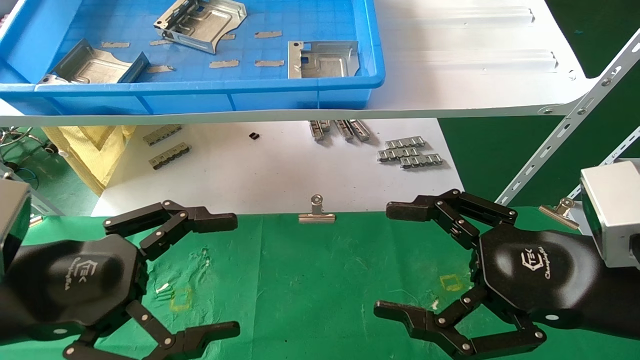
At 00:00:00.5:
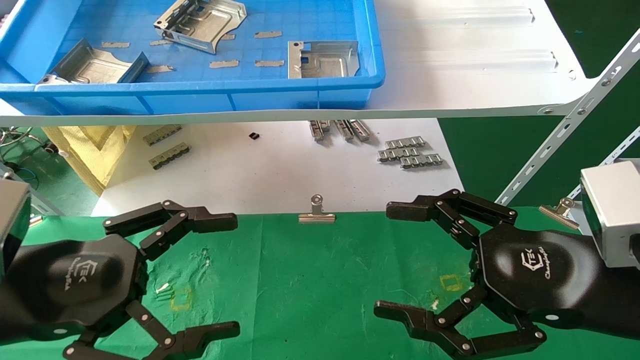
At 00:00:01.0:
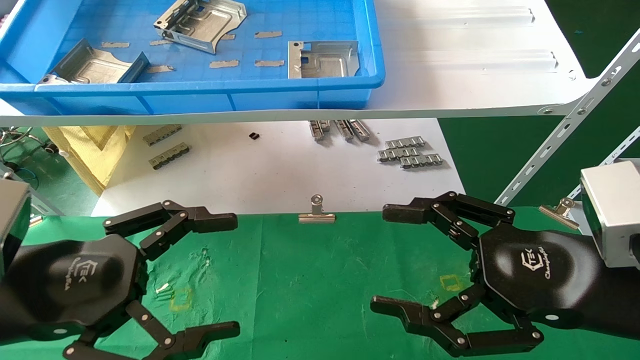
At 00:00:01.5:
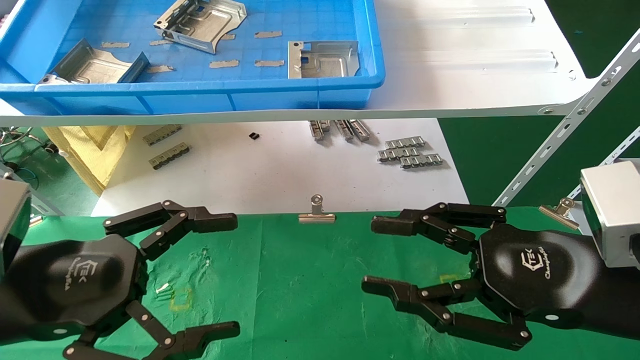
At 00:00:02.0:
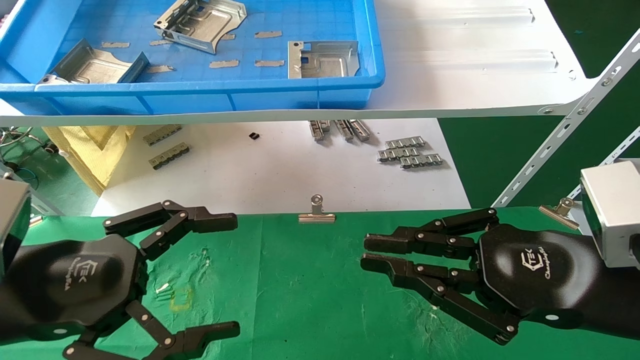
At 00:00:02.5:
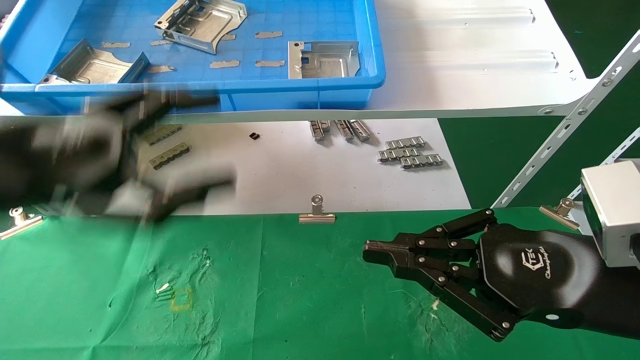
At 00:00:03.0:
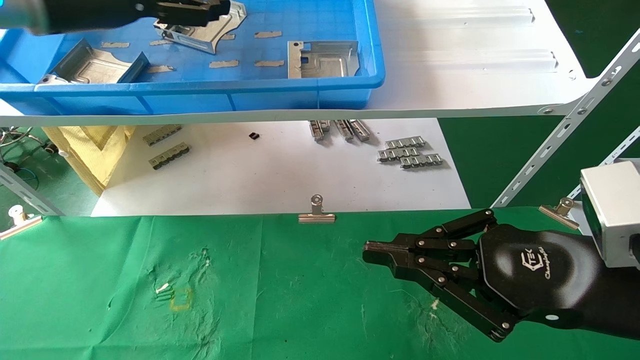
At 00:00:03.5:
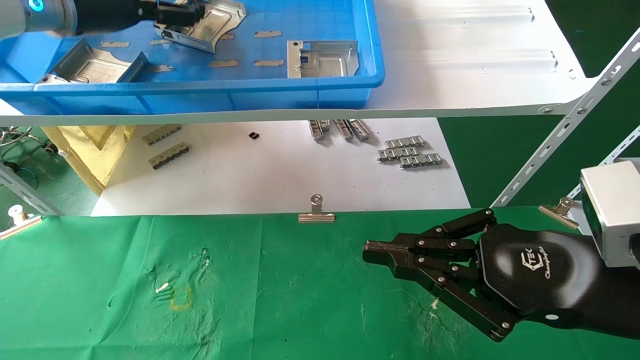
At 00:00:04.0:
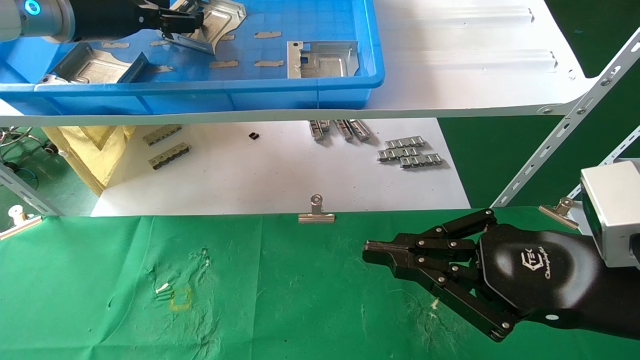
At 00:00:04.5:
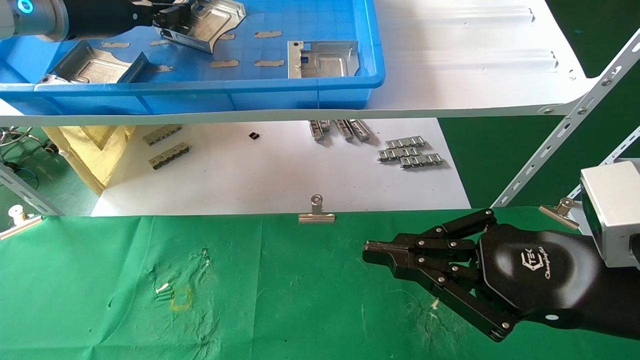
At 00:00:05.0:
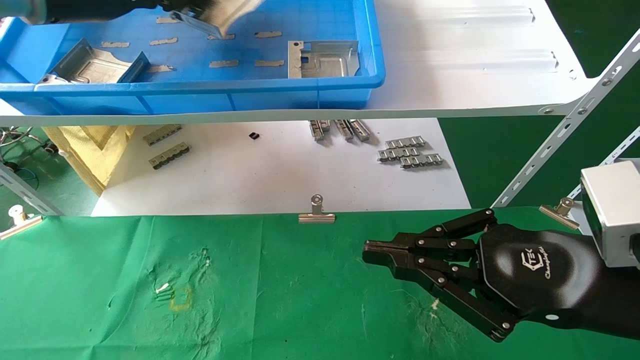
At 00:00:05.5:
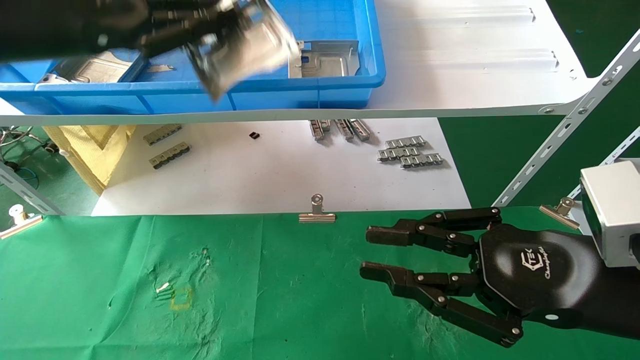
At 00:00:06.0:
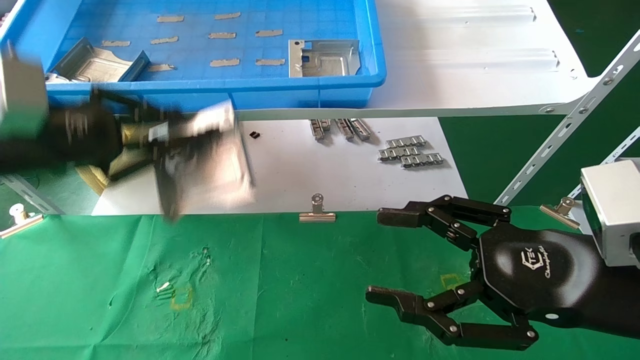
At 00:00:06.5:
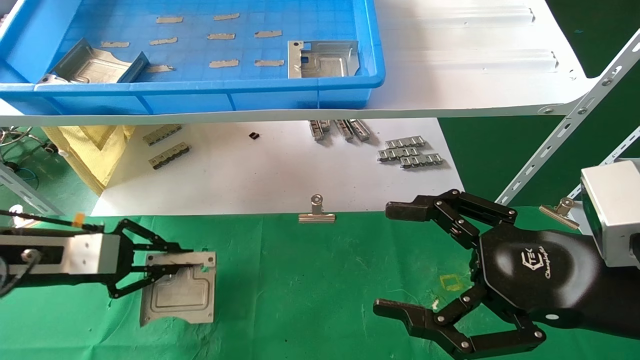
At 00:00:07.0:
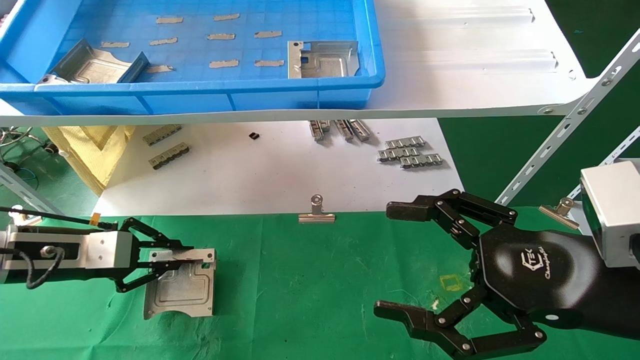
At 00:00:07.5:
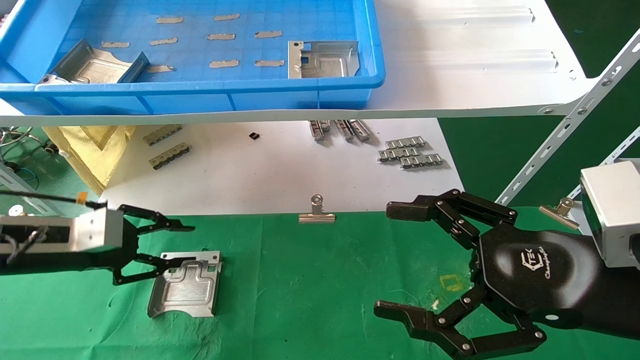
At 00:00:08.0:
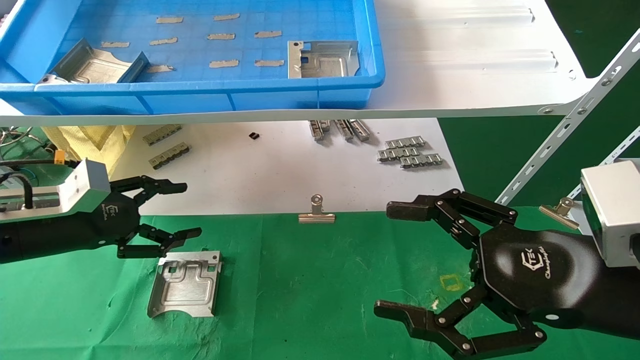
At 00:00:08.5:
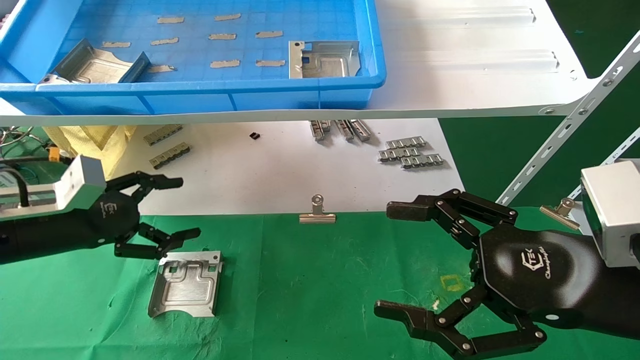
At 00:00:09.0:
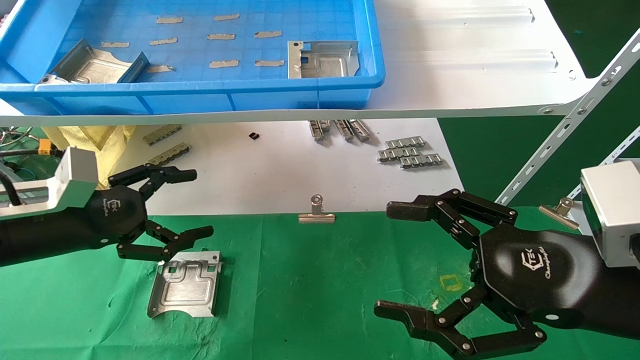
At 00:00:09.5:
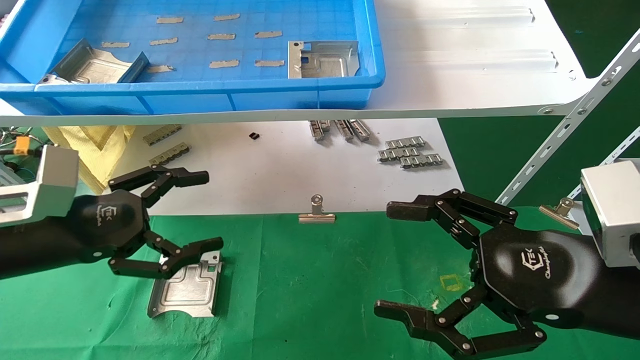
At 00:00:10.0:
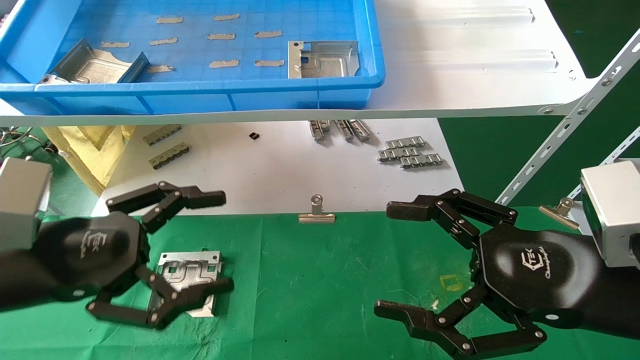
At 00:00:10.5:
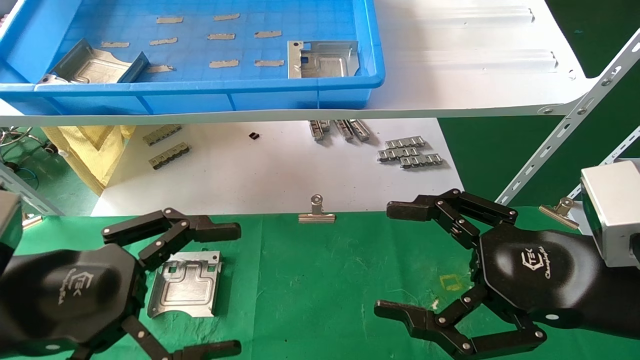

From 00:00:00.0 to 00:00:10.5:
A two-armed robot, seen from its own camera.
Task of the whole recording: use the mechanical arm to pick up the parts and place them on the table.
Step, from 00:00:02.5 to 00:00:04.5: Pick up the hard drive bracket from the feeding area.
Step, from 00:00:05.0 to 00:00:07.5: Place the hard drive bracket into the box.
From 00:00:00.0 to 00:00:02.0: The right gripper closes its fingers.
From 00:00:02.0 to 00:00:04.0: The left gripper travels forward and upward by approximately 30 cm.
From 00:00:04.0 to 00:00:06.5: The left gripper shifts roughly 25 cm downward, and closes its fingers. The right gripper opens its fingers.
From 00:00:06.5 to 00:00:08.5: The left gripper opens.
From 00:00:08.5 to 00:00:10.5: The left gripper shifts roughly 20 cm backward and to the right.

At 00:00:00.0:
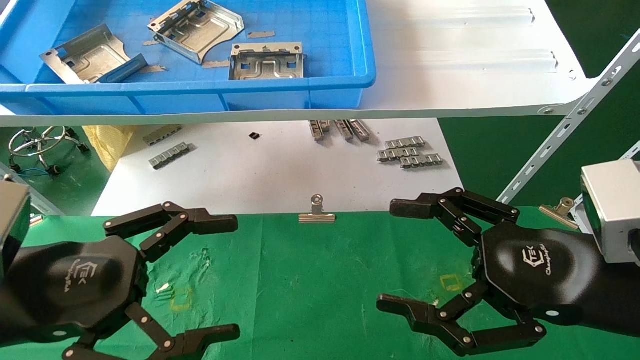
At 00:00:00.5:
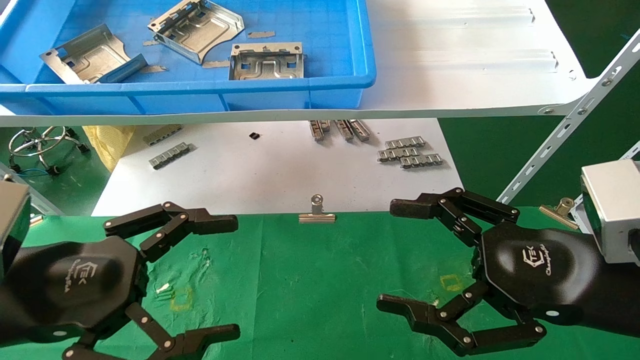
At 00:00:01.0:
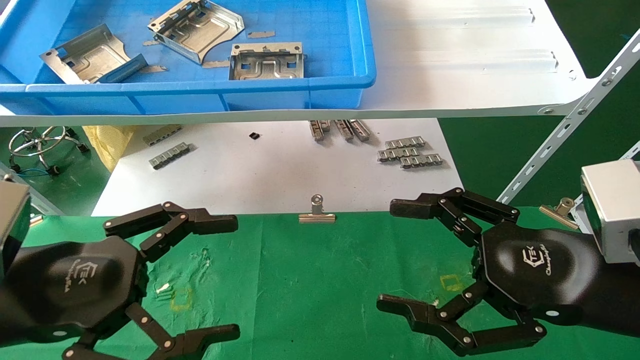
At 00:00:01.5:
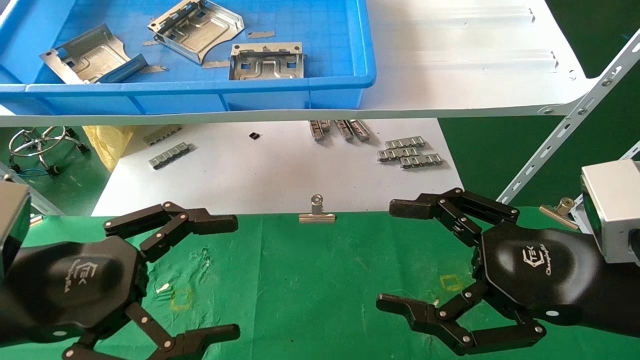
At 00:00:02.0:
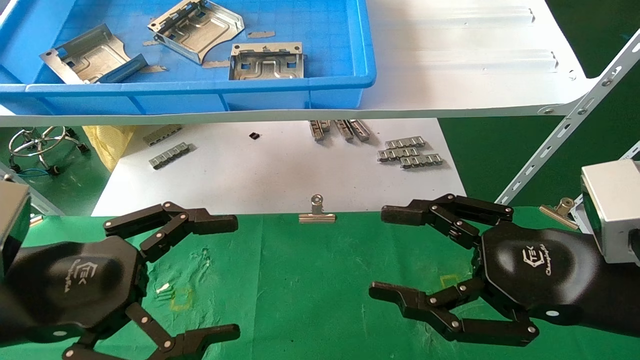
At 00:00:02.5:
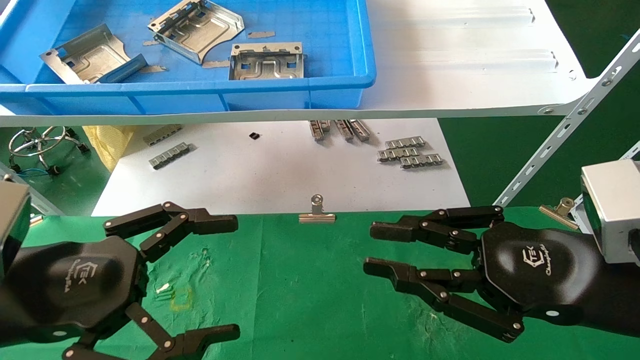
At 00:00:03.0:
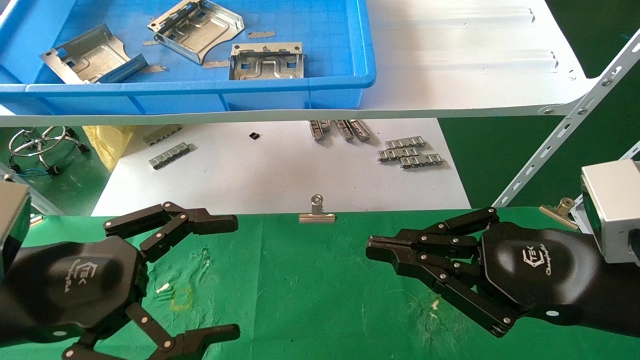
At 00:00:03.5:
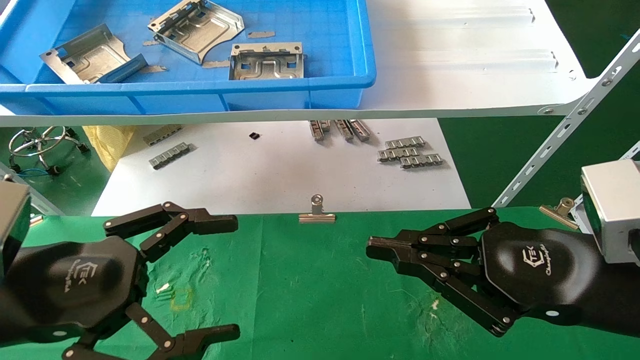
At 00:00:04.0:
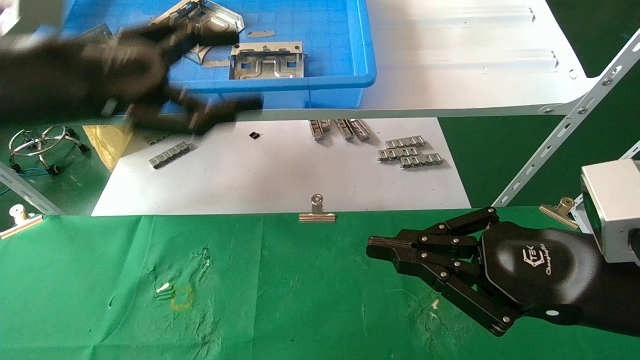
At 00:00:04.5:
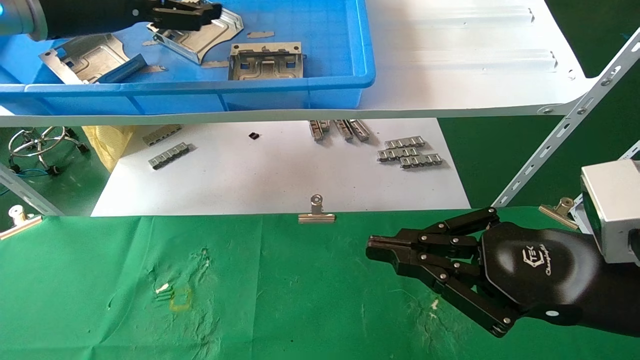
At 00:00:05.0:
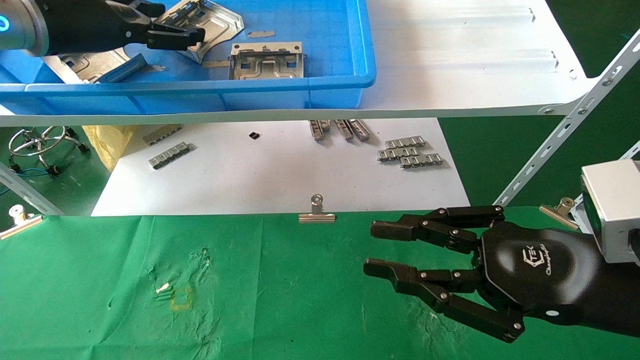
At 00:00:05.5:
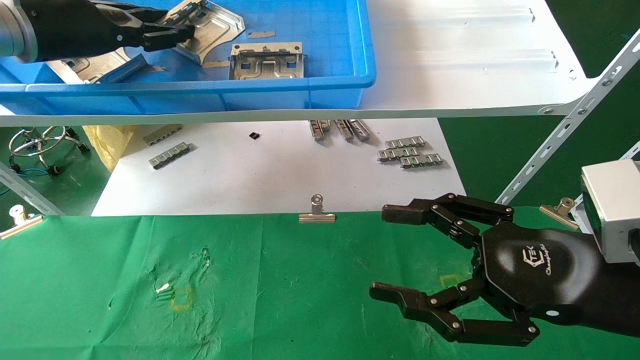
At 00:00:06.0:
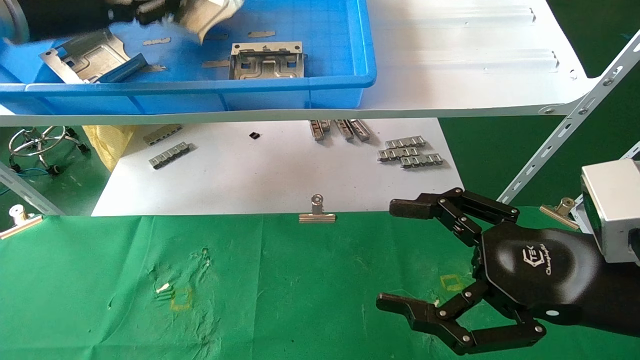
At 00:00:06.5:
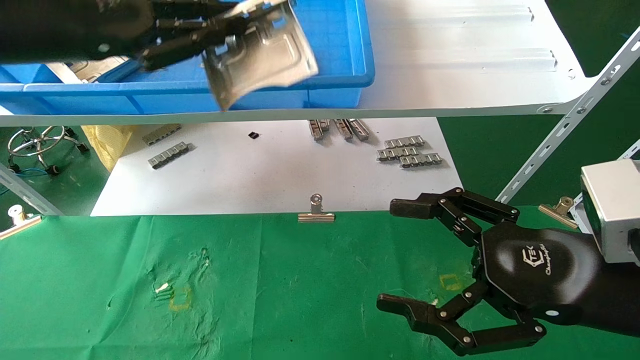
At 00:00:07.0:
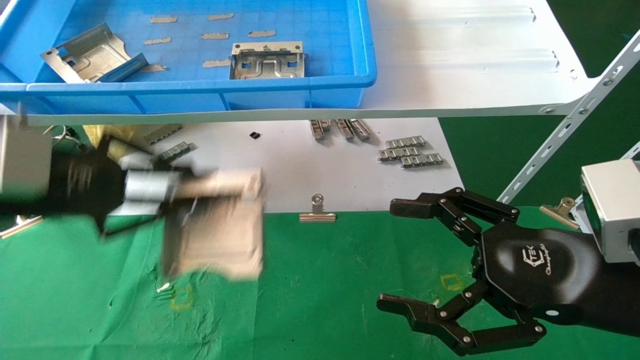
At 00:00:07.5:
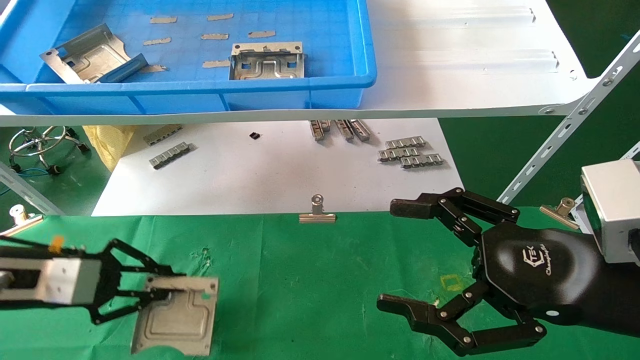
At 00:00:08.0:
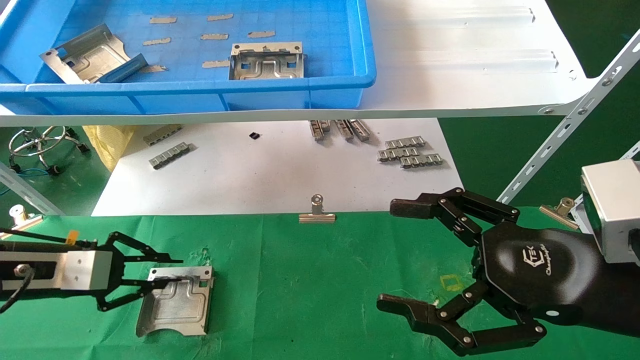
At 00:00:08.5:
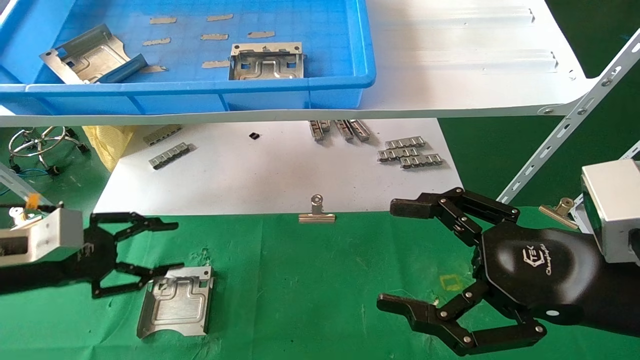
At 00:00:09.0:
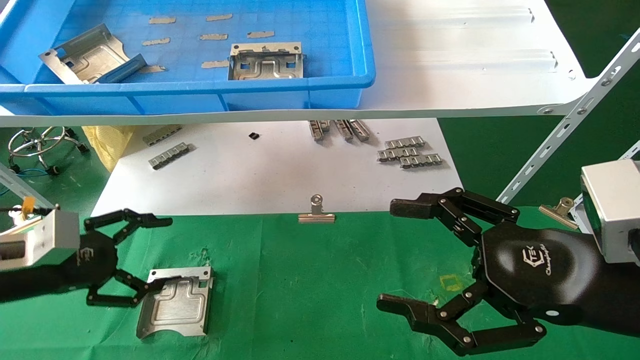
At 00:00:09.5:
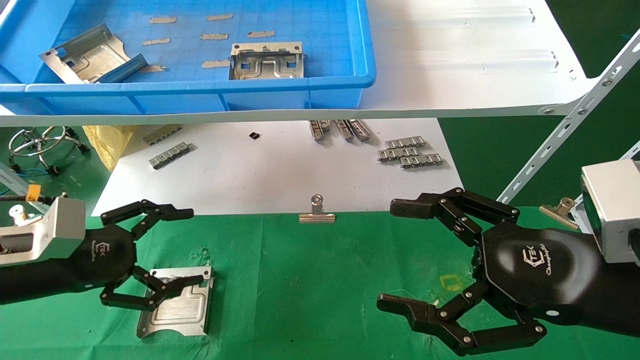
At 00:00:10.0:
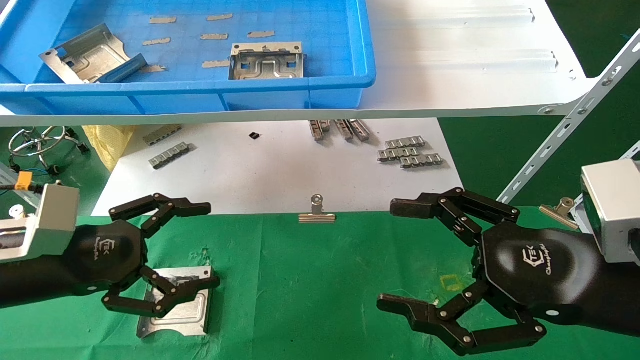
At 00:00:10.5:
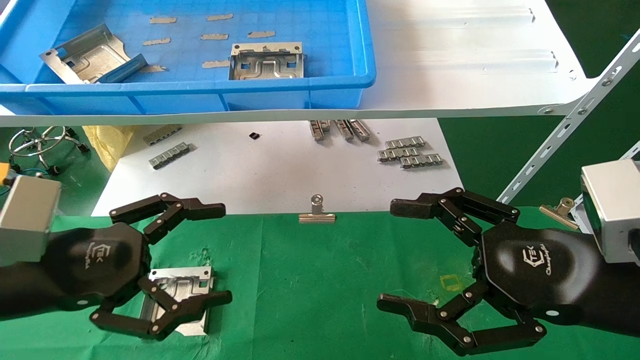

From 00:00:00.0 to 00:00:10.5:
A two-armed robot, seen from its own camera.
Task of the whole recording: use the mechanical arm to pick up the parts and place them on the table.
Step, from 00:00:03.5 to 00:00:06.5: Pick up the hard drive bracket from the feeding area.
Step, from 00:00:07.0 to 00:00:09.0: Place the hard drive bracket into the box.
From 00:00:00.0 to 00:00:02.0: Neither gripper changes place.
From 00:00:02.0 to 00:00:04.0: The right gripper closes. The left gripper goes about 20 cm upward and forward.
From 00:00:04.0 to 00:00:06.5: The right gripper opens, while the left gripper is displaced upward by some 5 cm, travels forward and back again, approximately 10 cm each way, and closes.
From 00:00:06.5 to 00:00:08.5: The left gripper shifts some 25 cm downward, and opens.
From 00:00:08.5 to 00:00:10.5: The left gripper is displaced to the right and backward by about 10 cm, and opens up.
